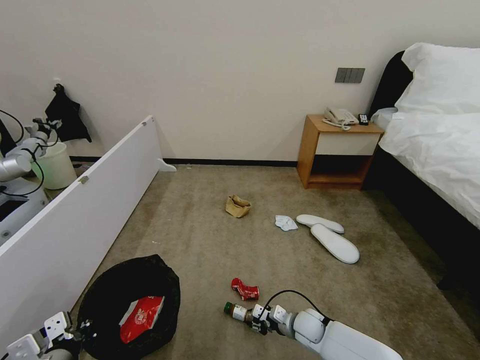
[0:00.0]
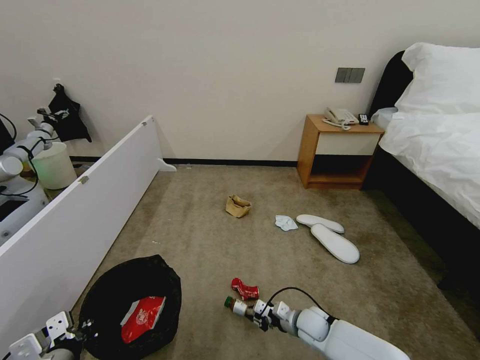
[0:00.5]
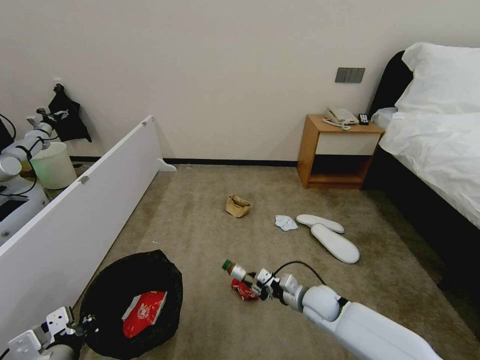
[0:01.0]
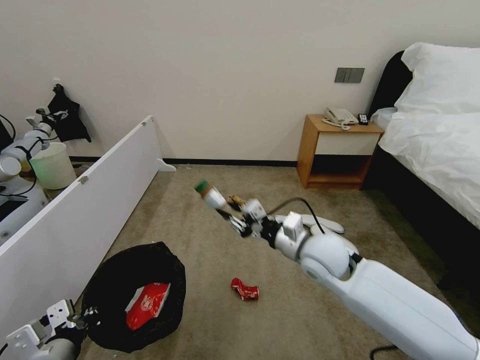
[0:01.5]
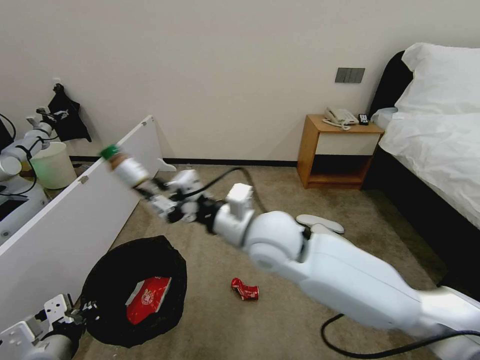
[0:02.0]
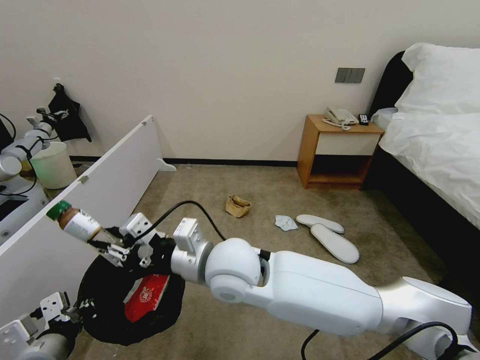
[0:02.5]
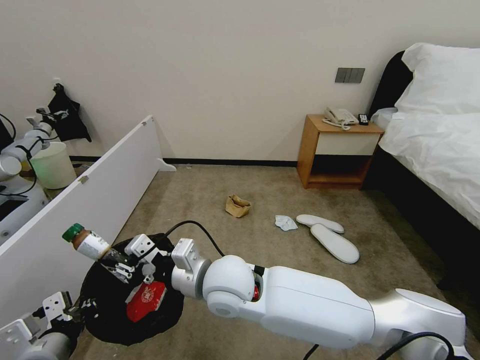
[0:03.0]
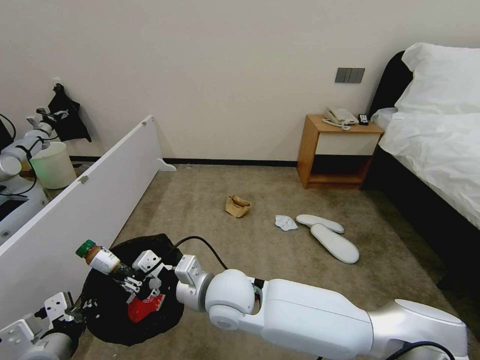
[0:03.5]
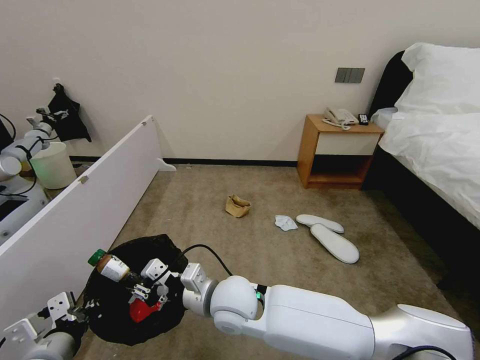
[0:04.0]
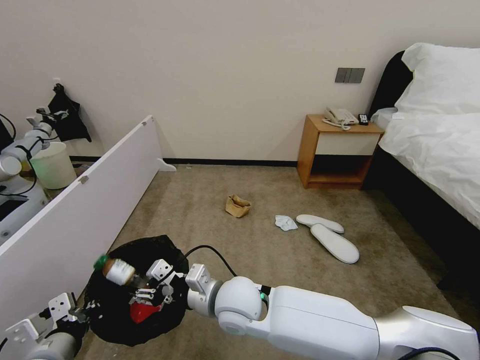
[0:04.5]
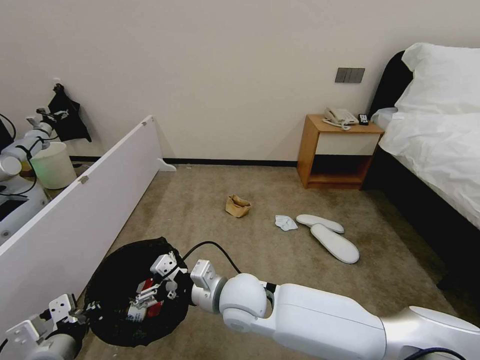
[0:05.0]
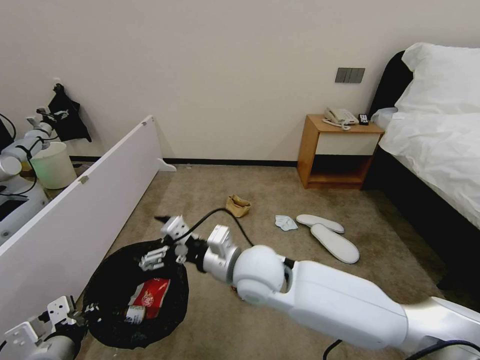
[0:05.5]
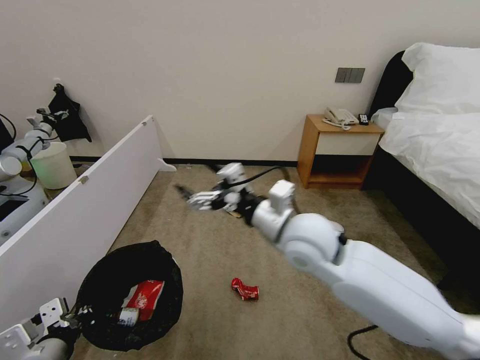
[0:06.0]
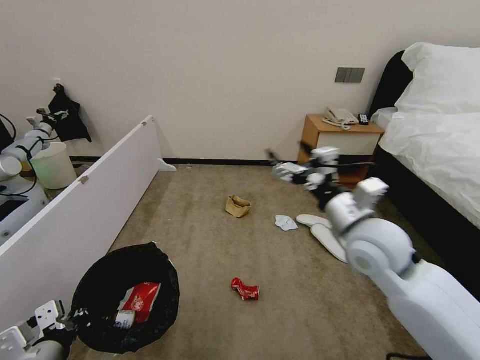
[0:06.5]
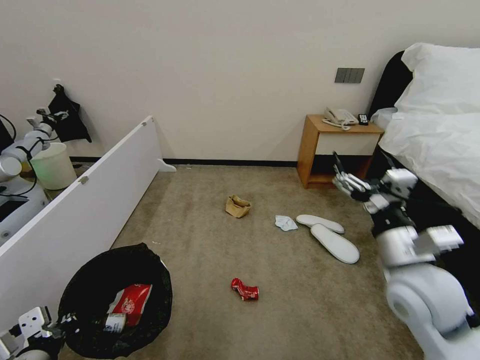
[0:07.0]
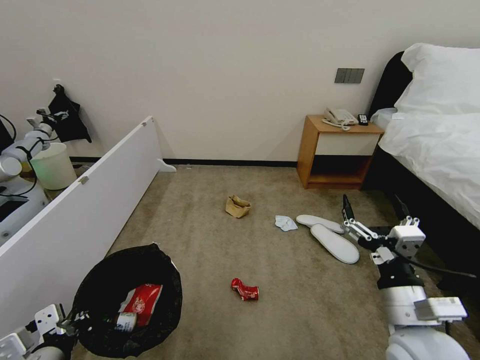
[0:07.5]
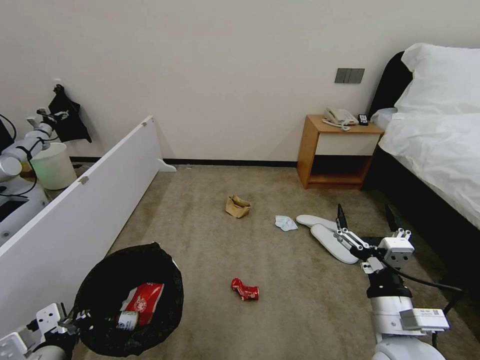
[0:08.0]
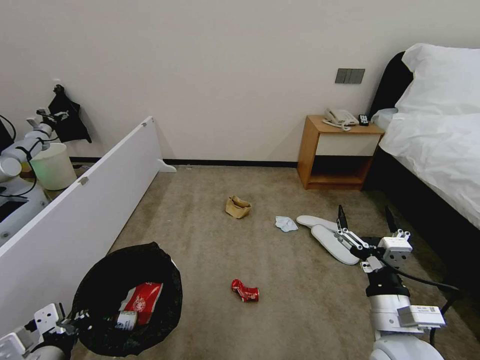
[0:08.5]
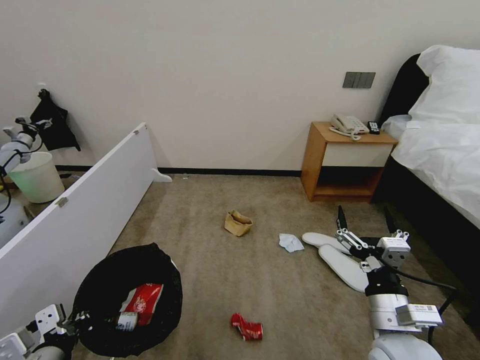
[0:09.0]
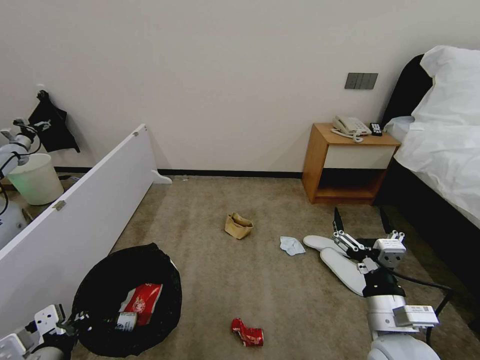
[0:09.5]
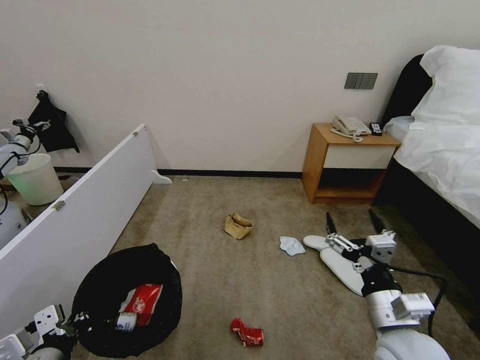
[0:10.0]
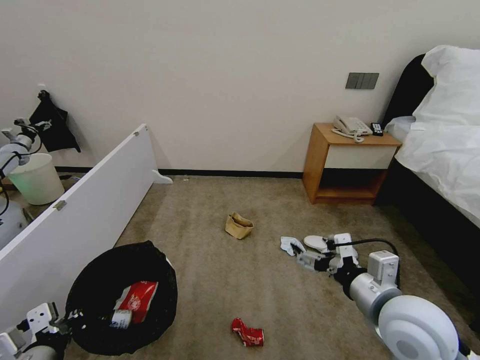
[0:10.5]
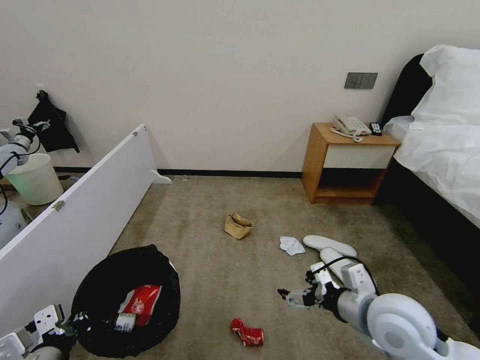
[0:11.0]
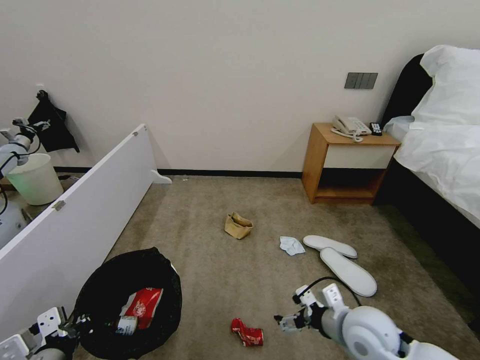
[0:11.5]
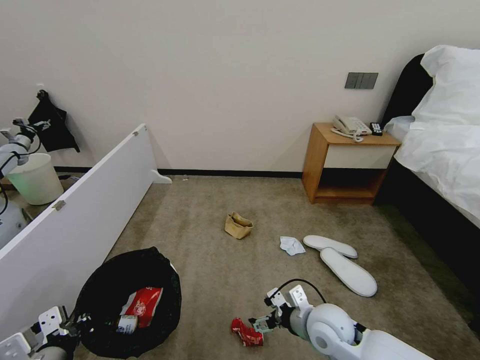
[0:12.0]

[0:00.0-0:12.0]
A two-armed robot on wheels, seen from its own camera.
Task of the whole recording: Pick up the trash bin, then pick up the garbage from the floor and place it into the trash bin.
0:00.0 to 0:02.0: The right gripper shifts about 40 cm upward.
0:02.0 to 0:04.0: The right gripper shifts roughly 20 cm downward, to the left and backward.
0:04.0 to 0:06.0: The right gripper goes approximately 20 cm upward and to the right, and opens up.
0:06.0 to 0:08.0: The right gripper is displaced backward, to the right and downward by some 25 cm.
0:10.0 to 0:12.0: The right gripper travels downward, forward and to the left by approximately 15 cm.

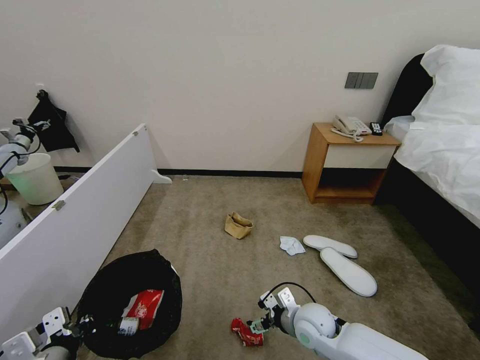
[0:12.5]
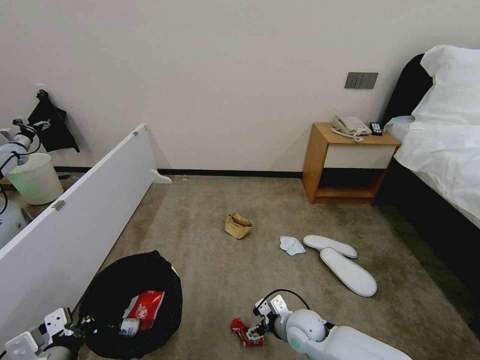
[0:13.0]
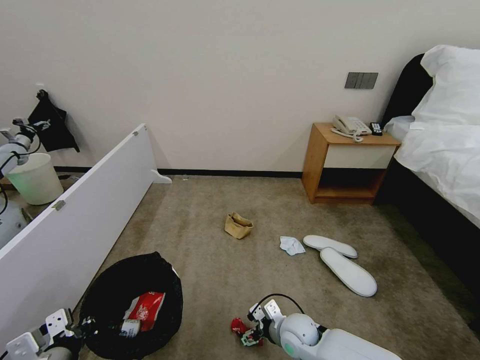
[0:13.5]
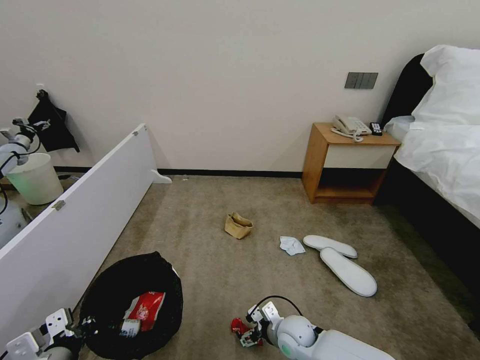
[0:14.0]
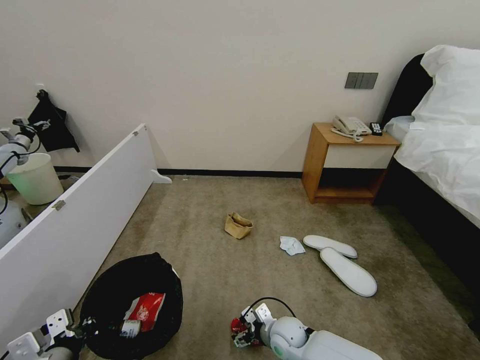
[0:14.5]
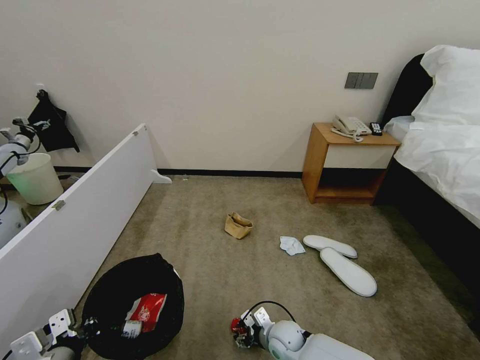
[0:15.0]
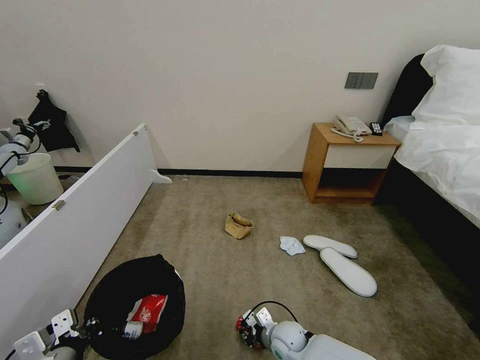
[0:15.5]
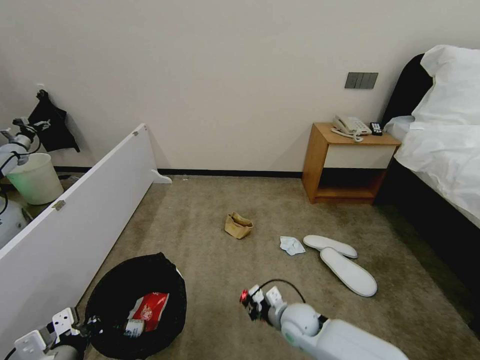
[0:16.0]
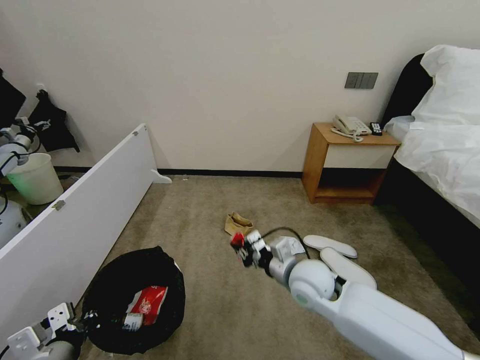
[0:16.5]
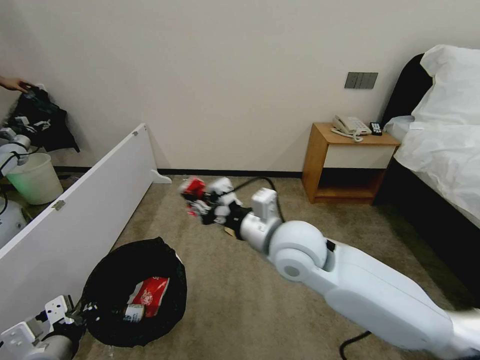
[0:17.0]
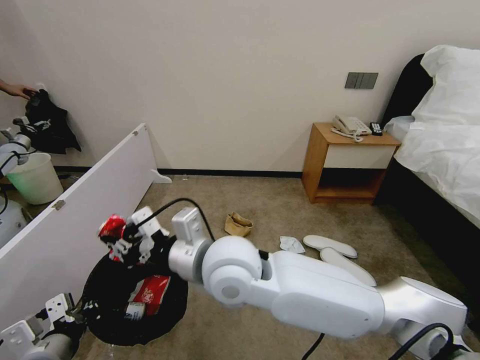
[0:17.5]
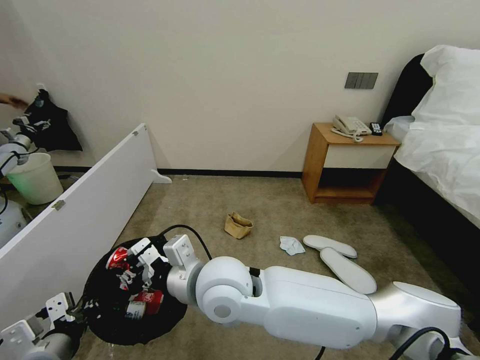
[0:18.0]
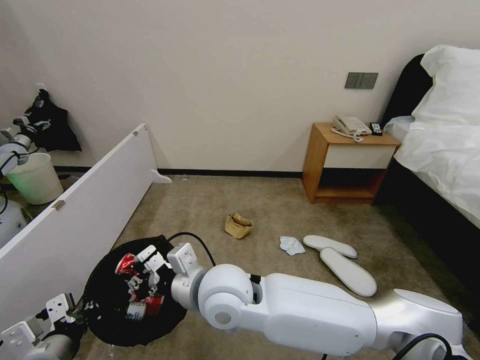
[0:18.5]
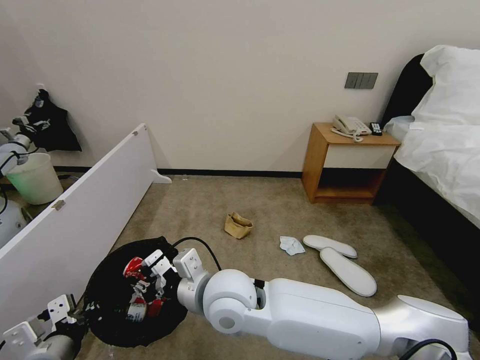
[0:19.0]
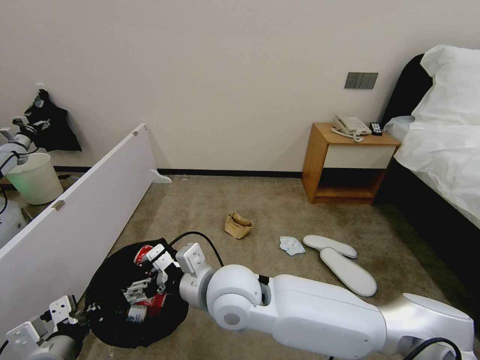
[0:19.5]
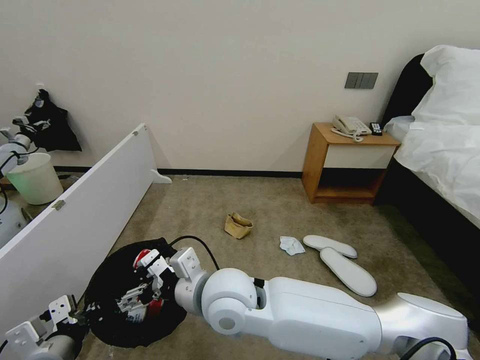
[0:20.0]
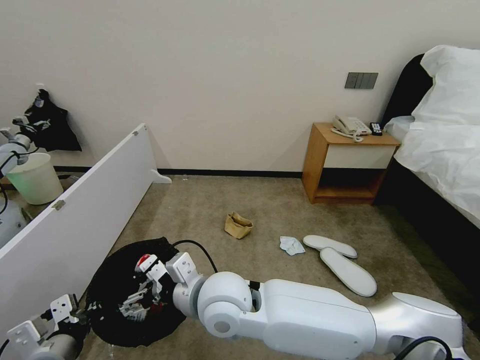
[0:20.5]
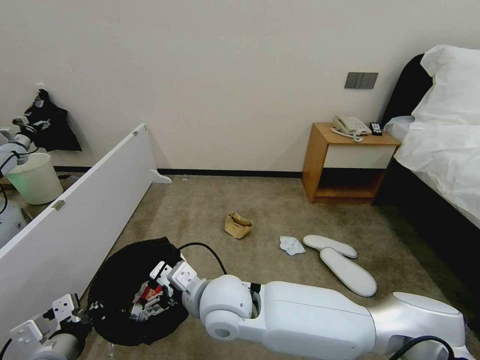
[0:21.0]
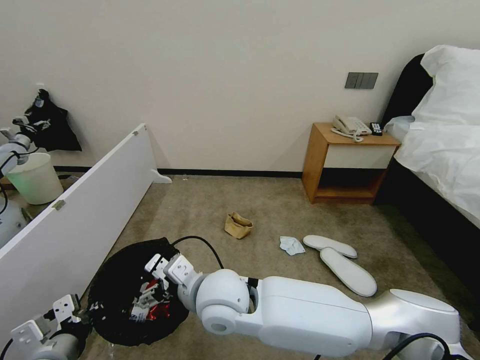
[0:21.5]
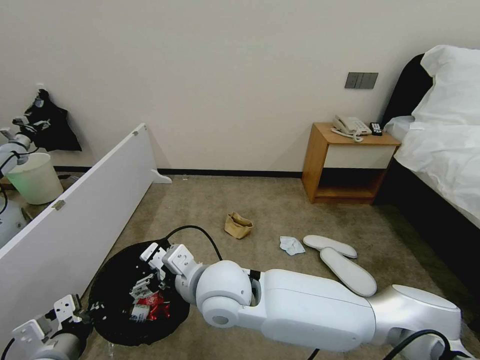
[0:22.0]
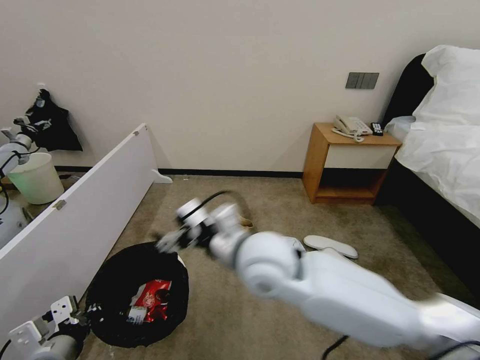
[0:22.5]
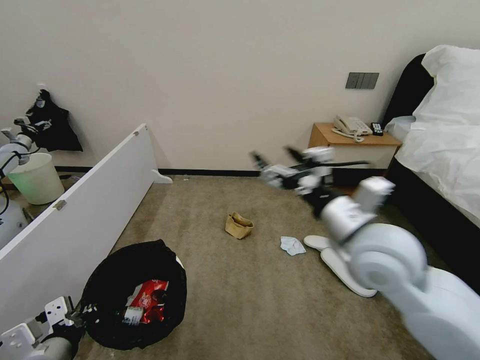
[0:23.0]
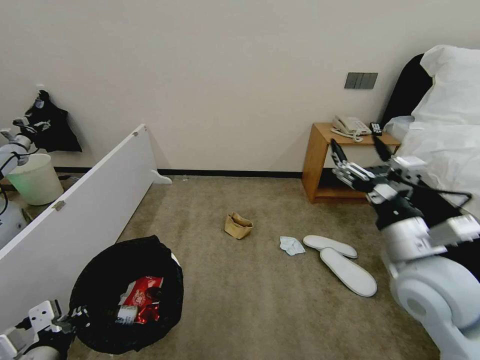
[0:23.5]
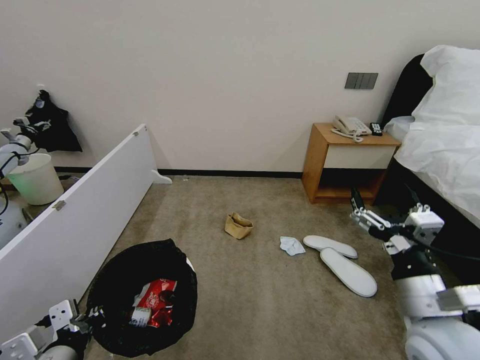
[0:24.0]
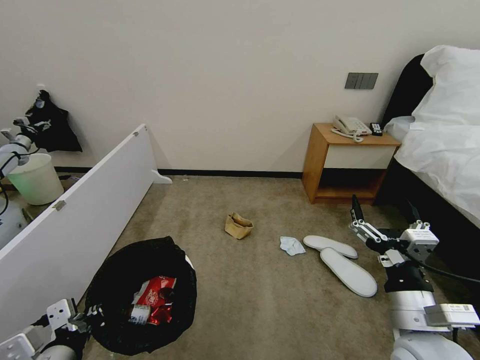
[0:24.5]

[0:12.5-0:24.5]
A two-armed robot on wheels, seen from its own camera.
Task of the whole recording: Pick up the trash bin, then pick up the garbage from the floor and place it into the trash bin.
0:12.5 to 0:14.5: The right gripper moves downward and to the left, approximately 10 cm.
0:14.5 to 0:16.5: The right gripper travels upward by some 25 cm, and closes up.
0:16.5 to 0:18.5: The right gripper is displaced to the left and upward by roughly 20 cm.
0:18.5 to 0:20.5: The right gripper opens.
0:20.5 to 0:22.5: The right gripper goes approximately 10 cm to the right and upward.
0:22.5 to 0:24.5: The right gripper travels to the right, backward and downward by approximately 30 cm, while the left gripper changes place by approximately 5 cm.

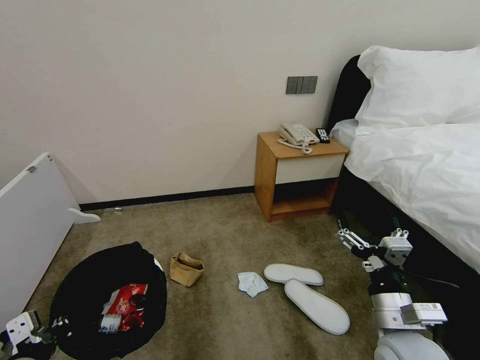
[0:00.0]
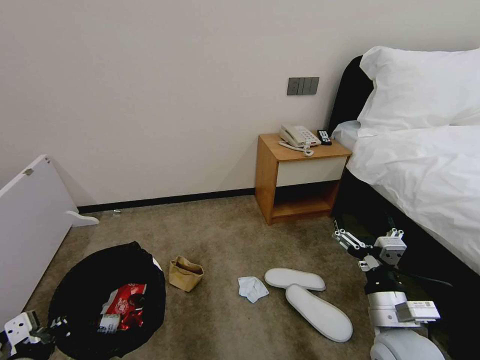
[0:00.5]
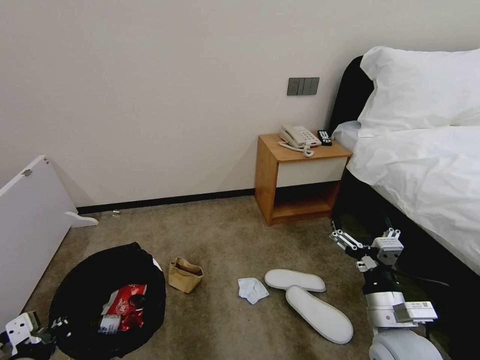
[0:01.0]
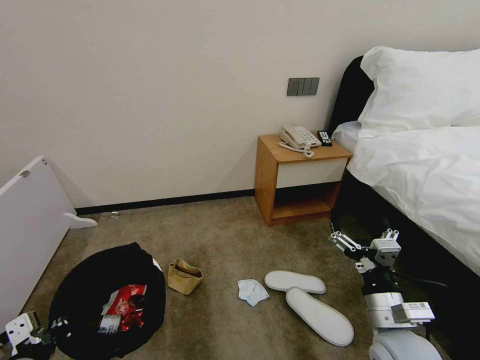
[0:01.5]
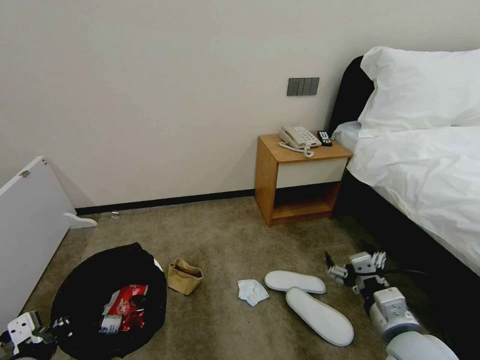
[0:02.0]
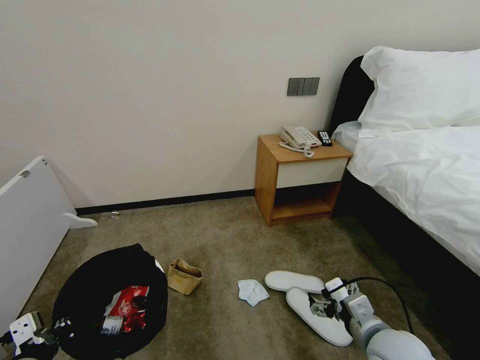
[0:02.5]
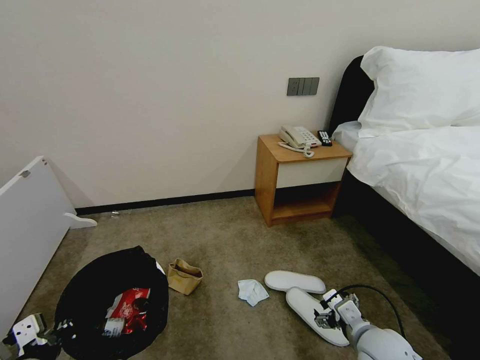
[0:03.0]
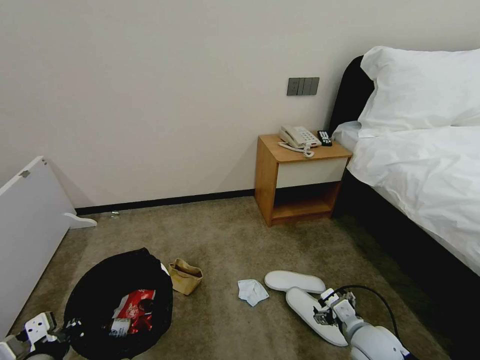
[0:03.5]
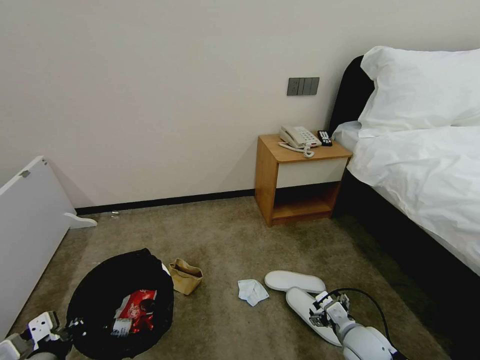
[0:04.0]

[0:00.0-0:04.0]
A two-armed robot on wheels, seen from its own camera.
Task of the whole recording: Pick up the trash bin, then pick up the garbage from the floor and place it into the trash bin.
0:02.0 to 0:04.0: The right gripper heads downward and forward, covering approximately 15 cm.
